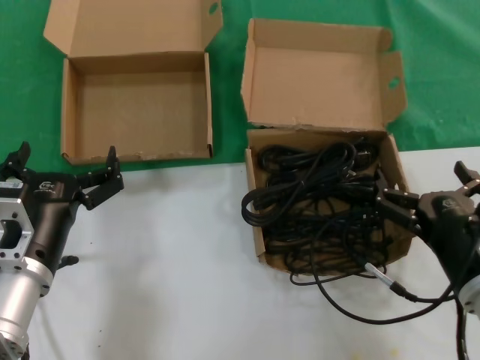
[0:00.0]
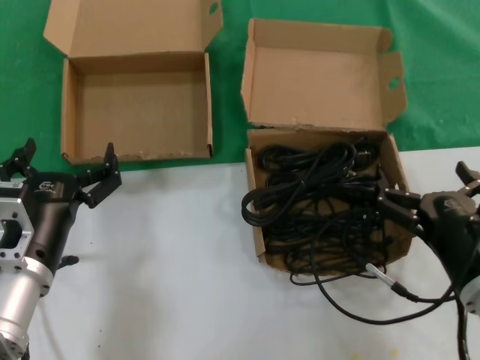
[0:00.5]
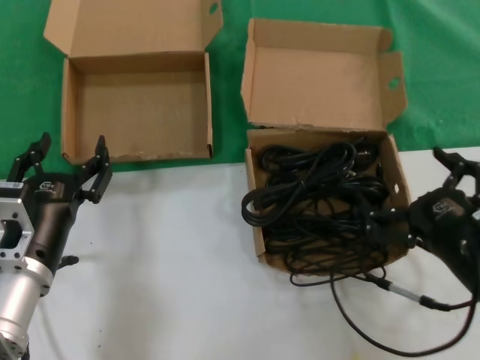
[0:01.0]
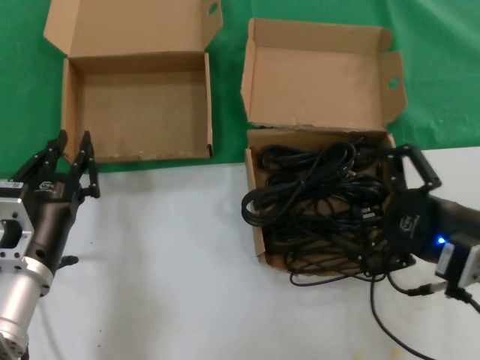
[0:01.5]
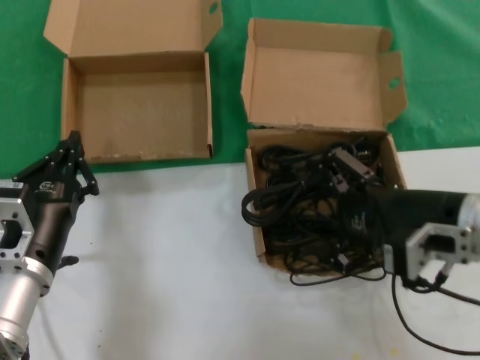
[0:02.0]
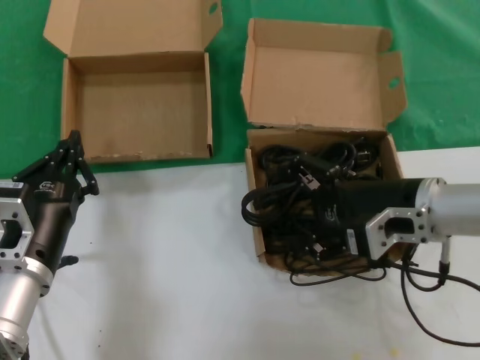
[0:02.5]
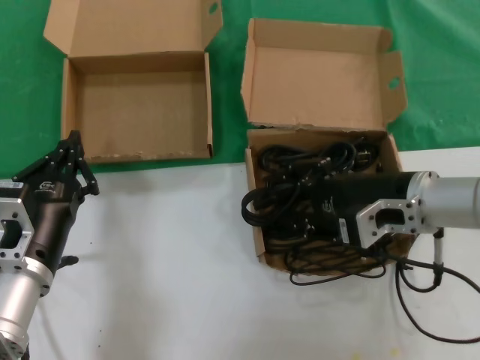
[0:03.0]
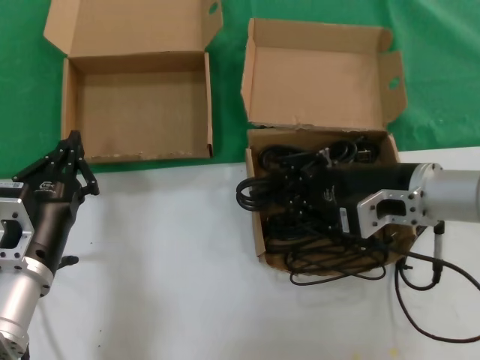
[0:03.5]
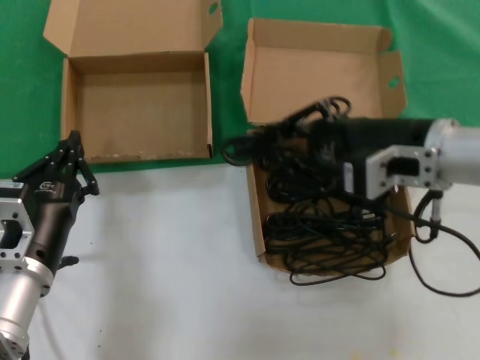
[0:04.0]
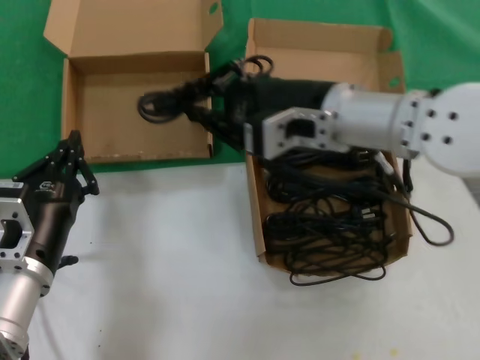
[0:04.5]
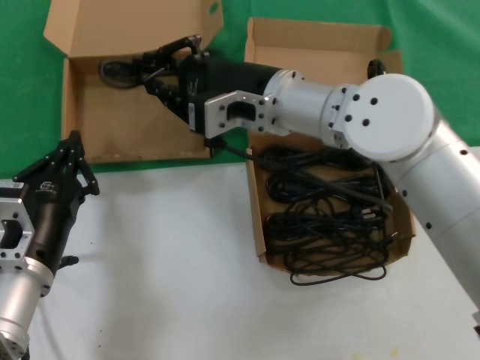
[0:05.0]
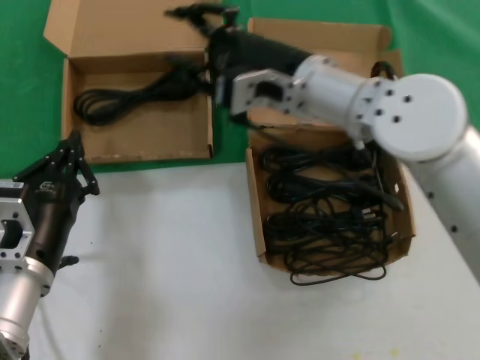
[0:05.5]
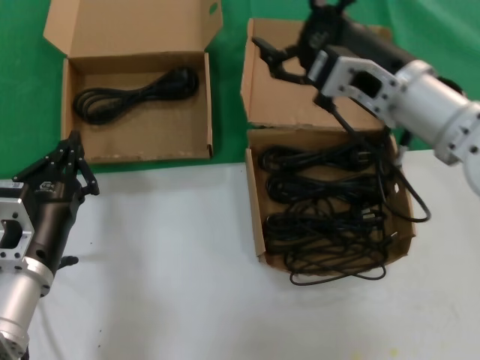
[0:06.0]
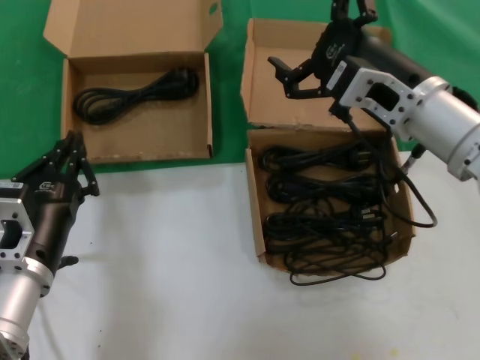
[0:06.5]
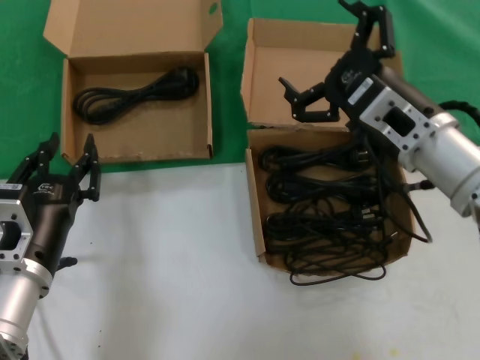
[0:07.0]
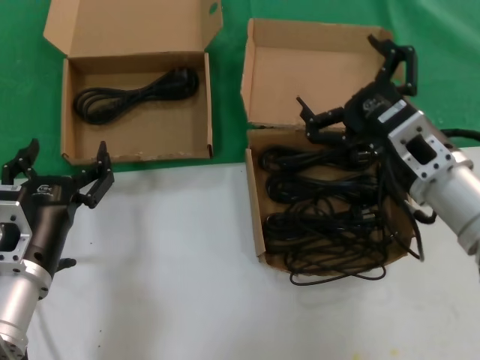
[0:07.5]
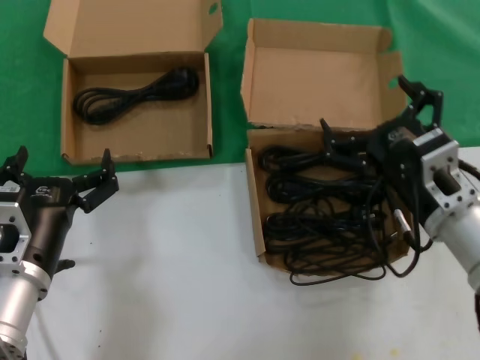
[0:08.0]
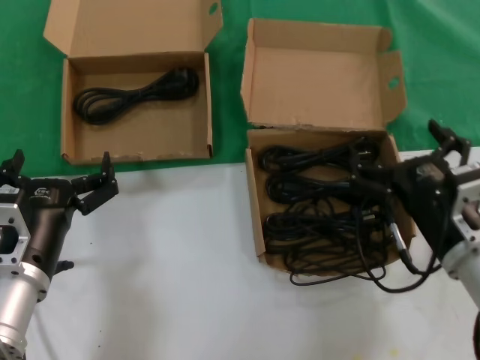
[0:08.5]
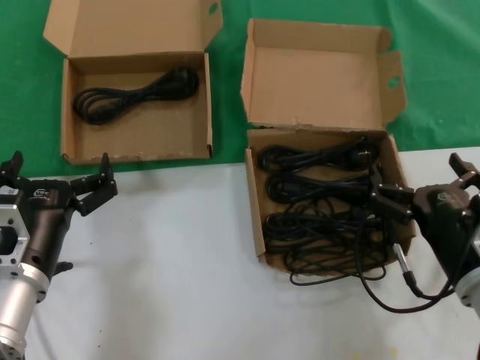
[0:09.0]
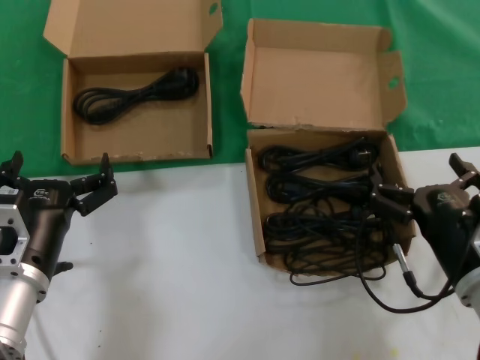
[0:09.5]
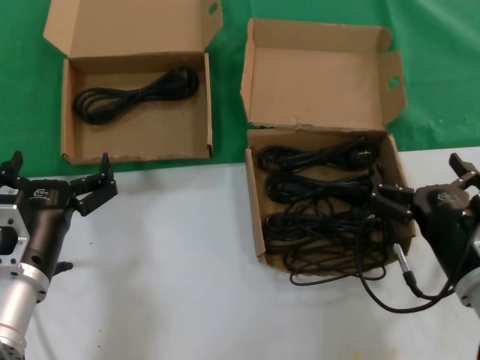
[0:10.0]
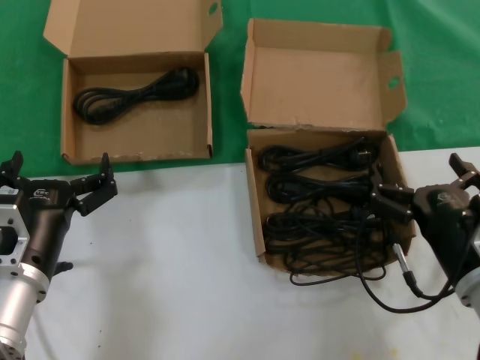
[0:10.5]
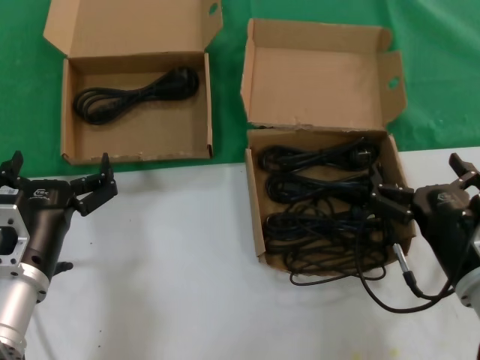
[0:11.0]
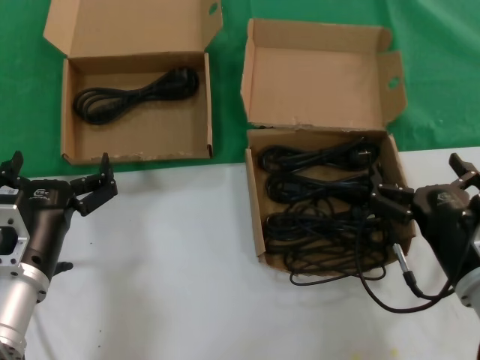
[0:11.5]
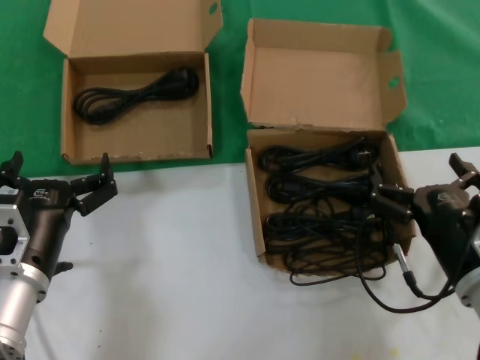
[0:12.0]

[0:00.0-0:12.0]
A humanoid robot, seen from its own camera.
Task of the whole recording: take the parts from the box containing them and put them into an empty box.
Step, 0.0 to 3.0 s: Grasp the data cable.
Step, 3.5 to 5.0 s: Place the data cable in the another box.
0.0 to 2.0 s: The right hand travels upward and forward by about 15 cm.
2.0 to 4.0 s: The right hand goes about 5 cm upward.
4.0 to 6.0 s: The right hand reaches roughly 15 cm to the left, then returns.
6.0 to 8.0 s: The right hand shifts approximately 15 cm downward, backward and to the right.
8.0 to 10.0 s: The right hand shifts approximately 10 cm downward and backward.
10.0 to 12.0 s: Both hands stay about where they are.

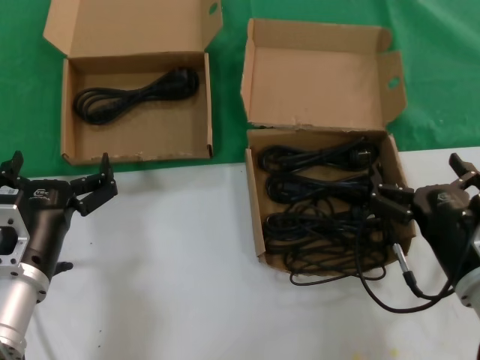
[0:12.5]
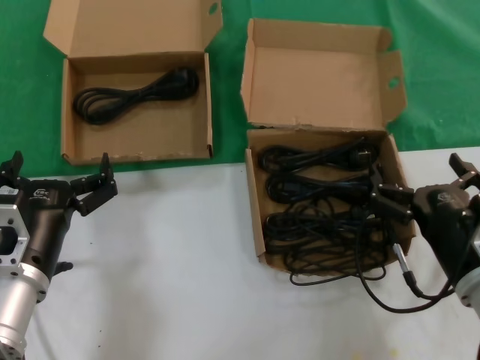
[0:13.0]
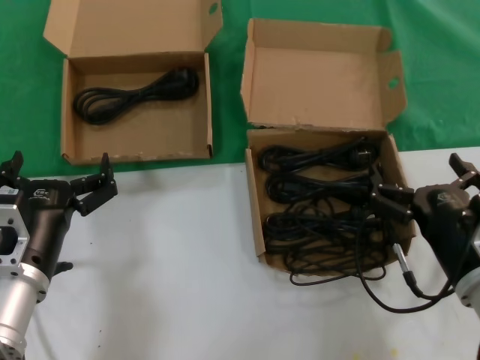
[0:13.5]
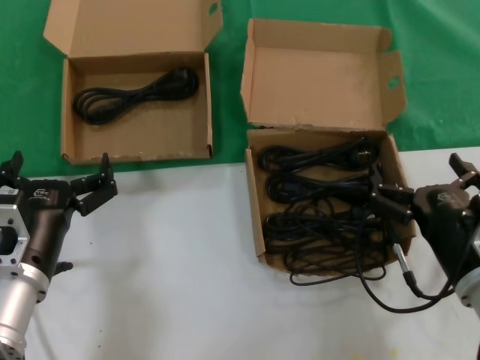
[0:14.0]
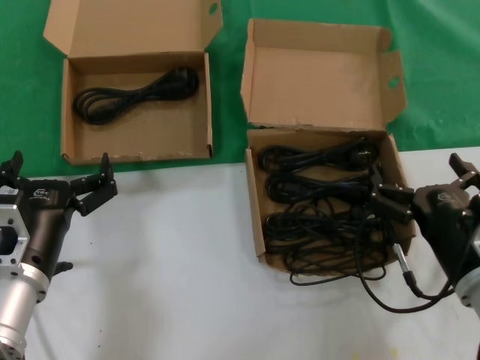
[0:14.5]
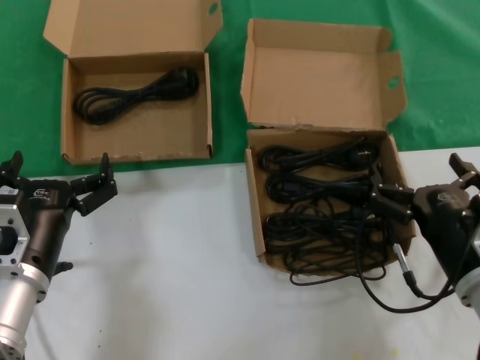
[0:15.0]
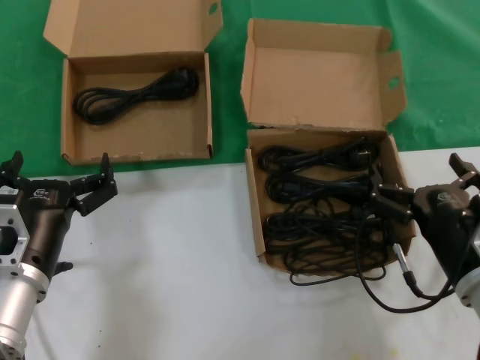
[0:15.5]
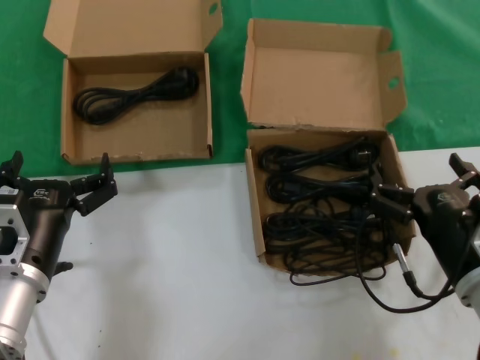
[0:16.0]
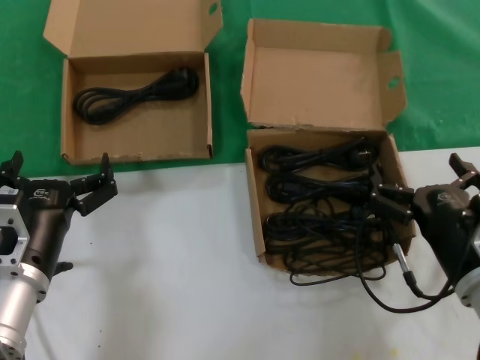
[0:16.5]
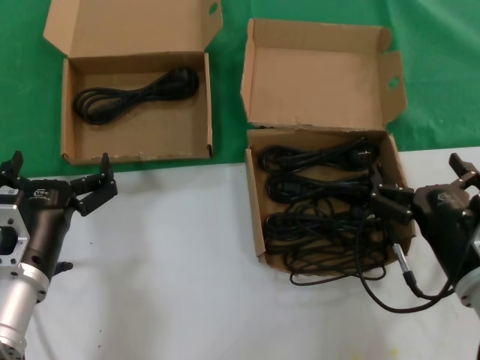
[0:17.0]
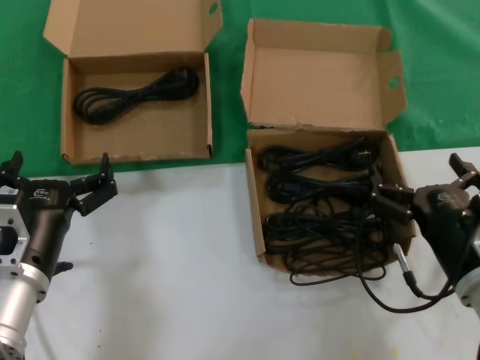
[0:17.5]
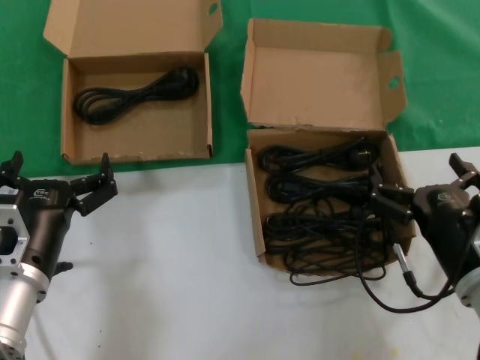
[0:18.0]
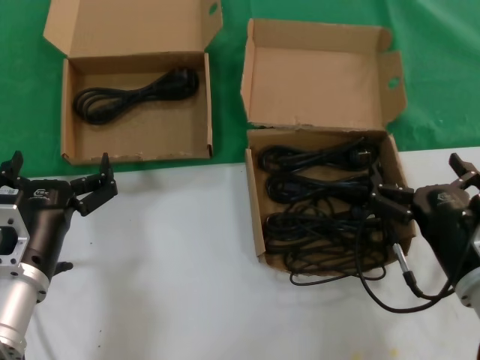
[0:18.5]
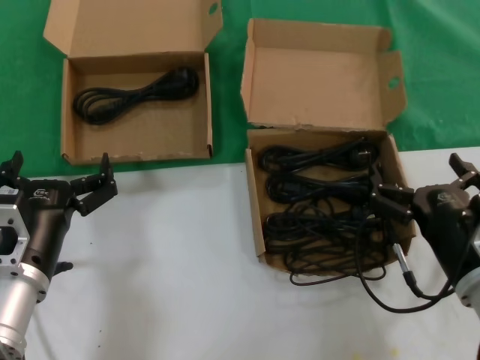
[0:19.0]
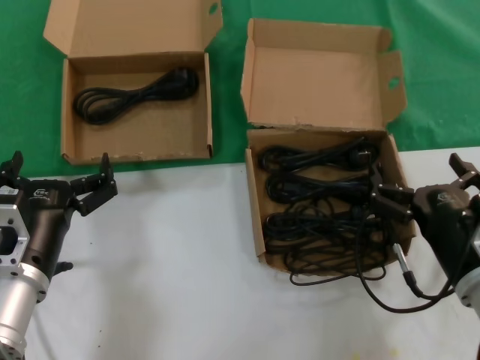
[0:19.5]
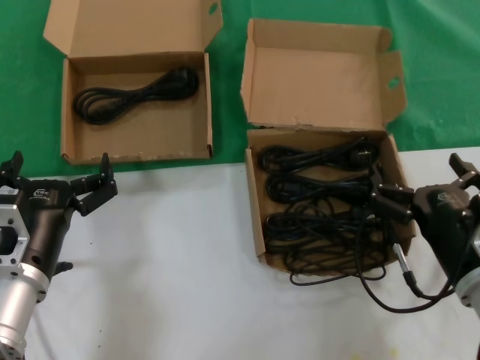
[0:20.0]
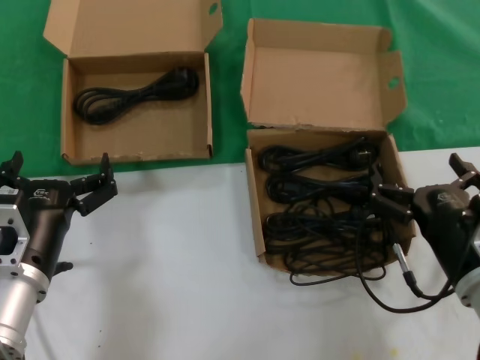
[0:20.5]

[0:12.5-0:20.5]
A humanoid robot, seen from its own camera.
Task of the whole recording: take the parts from the box containing them and put them into an empty box.
12.5 to 20.5 s: Neither hand changes place.

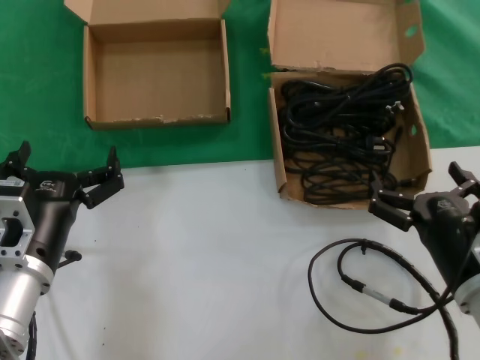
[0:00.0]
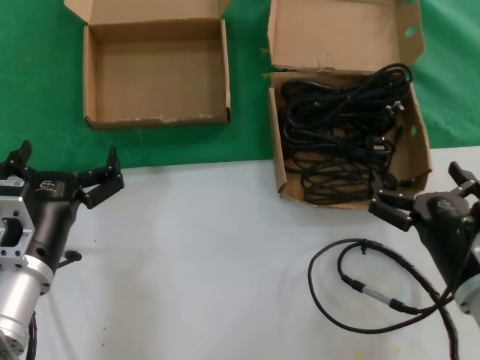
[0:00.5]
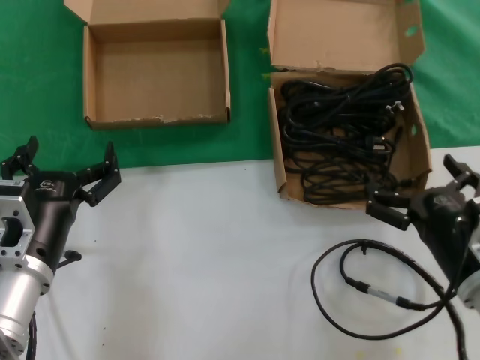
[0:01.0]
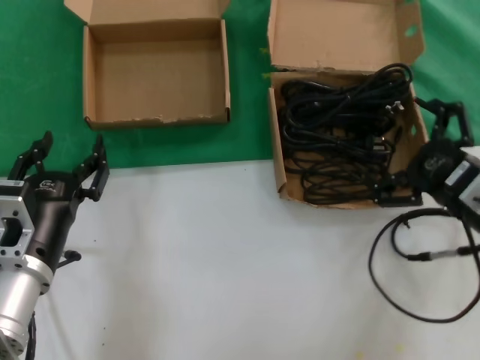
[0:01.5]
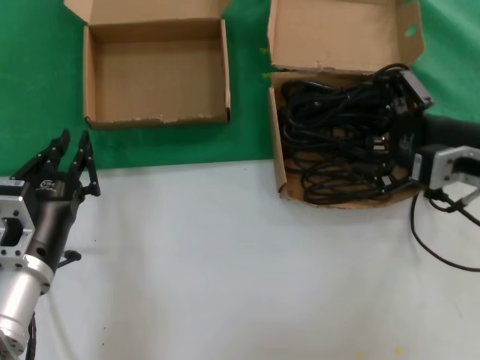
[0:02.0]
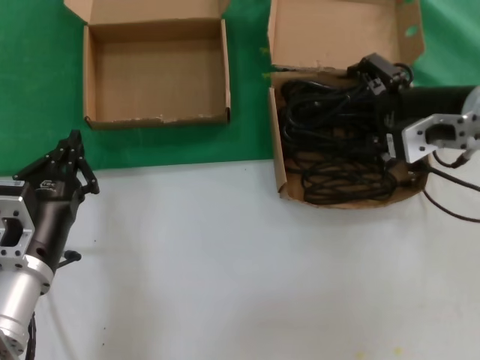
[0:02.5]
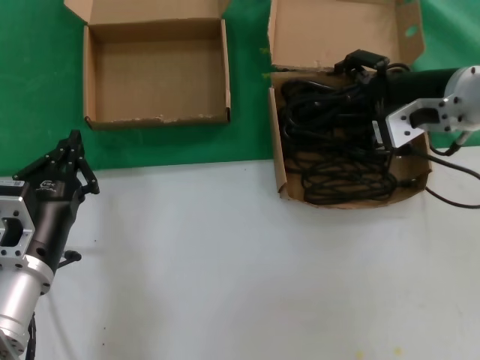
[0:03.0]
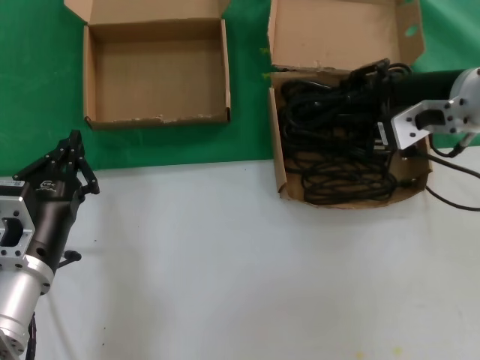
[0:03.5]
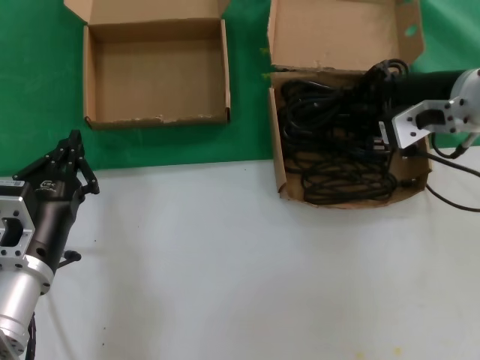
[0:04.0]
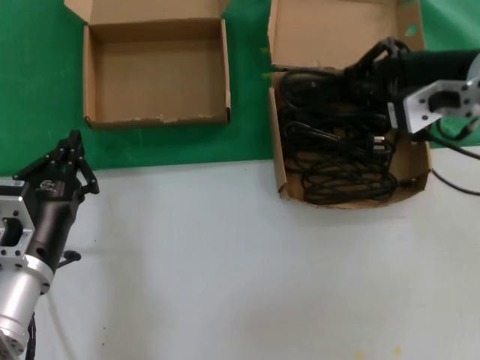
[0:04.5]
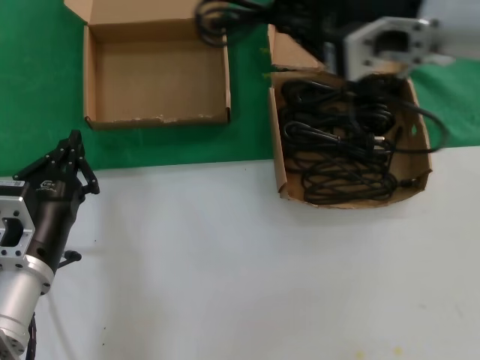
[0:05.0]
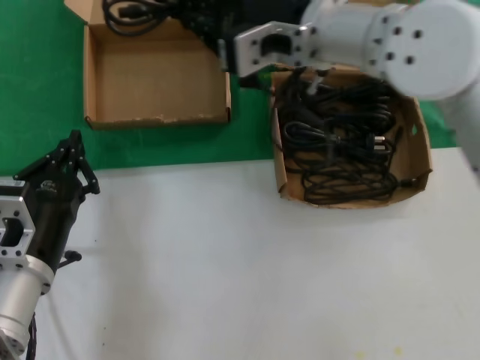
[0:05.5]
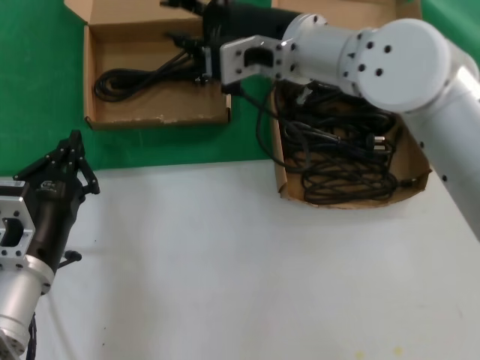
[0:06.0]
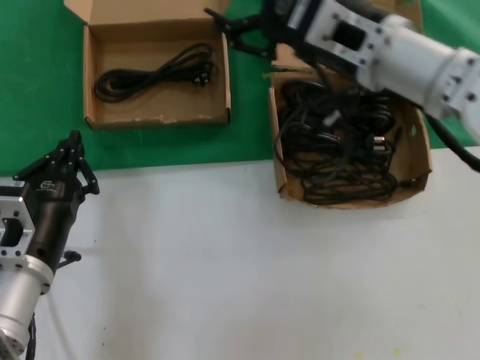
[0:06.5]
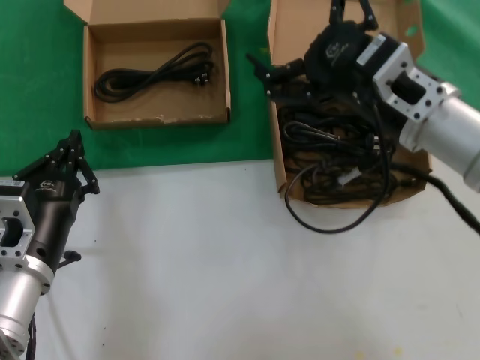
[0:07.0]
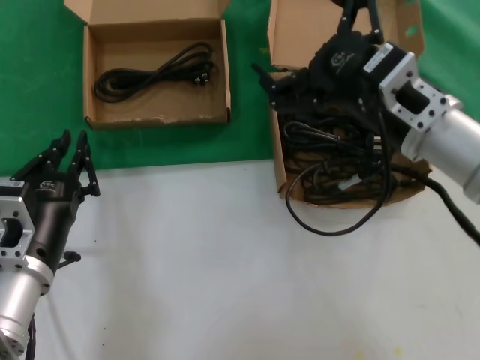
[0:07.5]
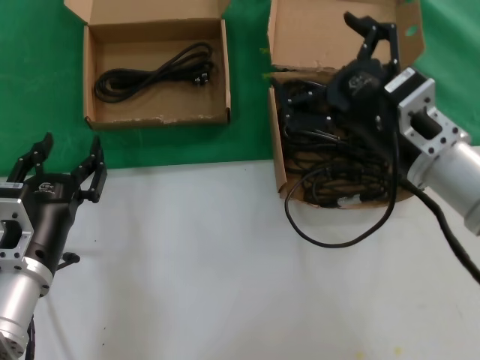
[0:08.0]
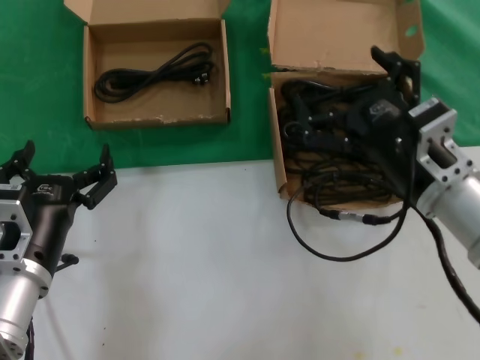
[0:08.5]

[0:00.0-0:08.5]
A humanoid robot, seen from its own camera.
Task of the whole recording: take the parts from the box containing them and put them into an empty box.
Step, 0.0 to 3.5 s: Grasp the data cable.
Step, 4.0 to 5.5 s: Place the data cable in the another box.
0.0 to 2.0 s: The right hand is displaced upward and forward by approximately 20 cm.
2.0 to 4.0 s: The right hand travels forward and upward by approximately 10 cm.
4.0 to 6.5 s: The right hand is displaced to the left by some 10 cm.
6.5 to 8.5 s: The right hand shifts roughly 15 cm downward, backward and to the right.
